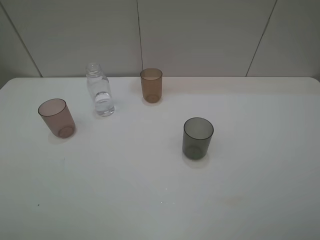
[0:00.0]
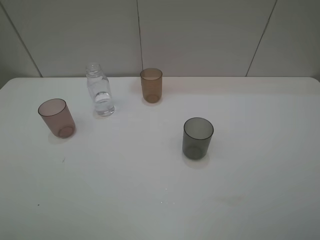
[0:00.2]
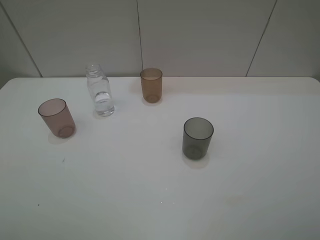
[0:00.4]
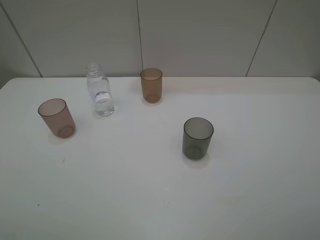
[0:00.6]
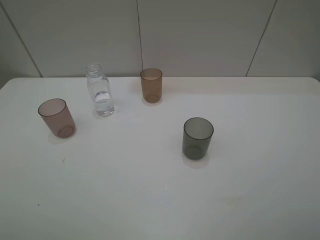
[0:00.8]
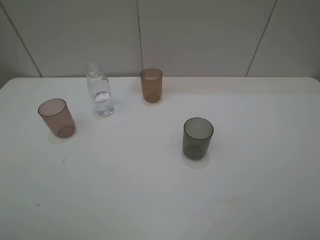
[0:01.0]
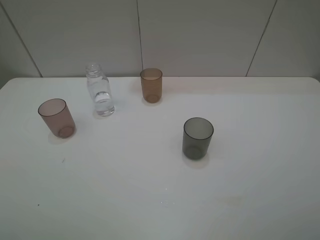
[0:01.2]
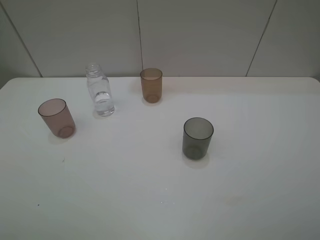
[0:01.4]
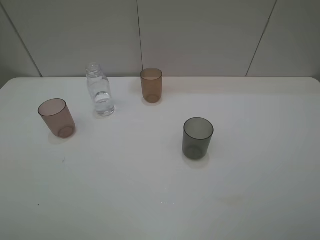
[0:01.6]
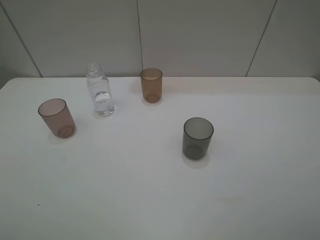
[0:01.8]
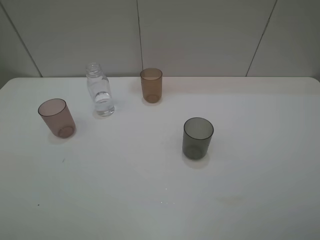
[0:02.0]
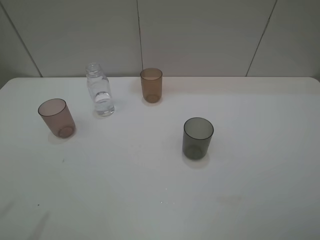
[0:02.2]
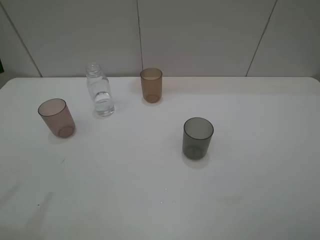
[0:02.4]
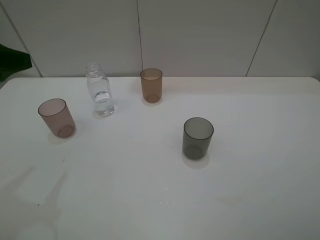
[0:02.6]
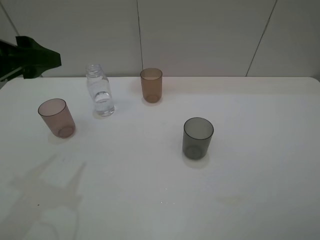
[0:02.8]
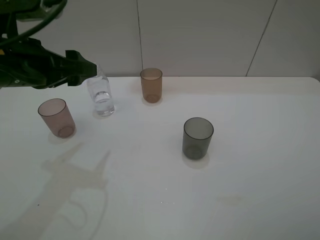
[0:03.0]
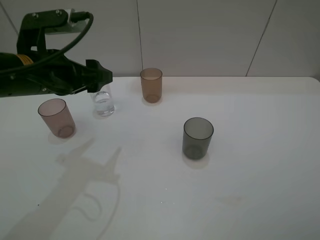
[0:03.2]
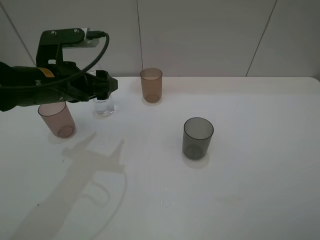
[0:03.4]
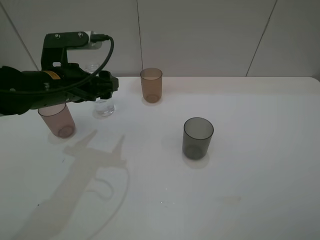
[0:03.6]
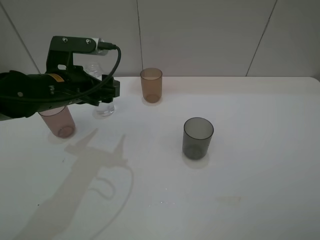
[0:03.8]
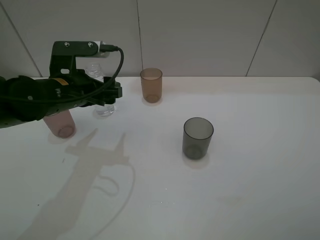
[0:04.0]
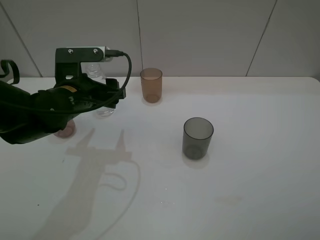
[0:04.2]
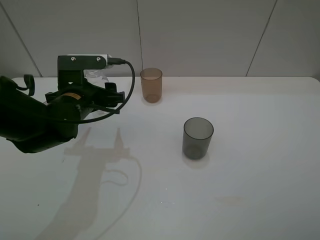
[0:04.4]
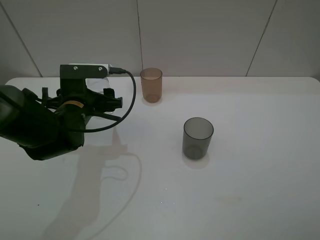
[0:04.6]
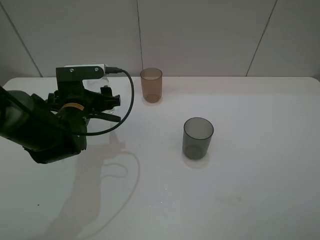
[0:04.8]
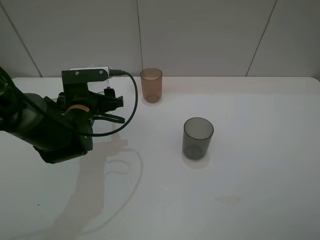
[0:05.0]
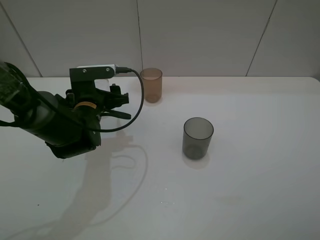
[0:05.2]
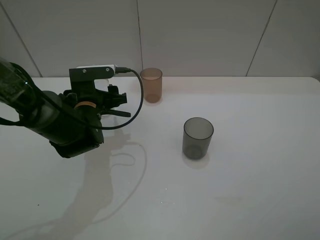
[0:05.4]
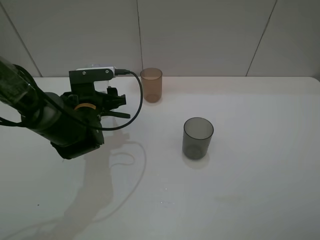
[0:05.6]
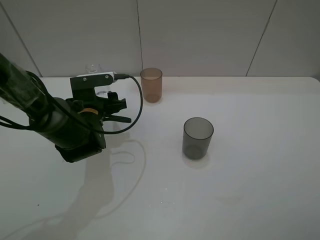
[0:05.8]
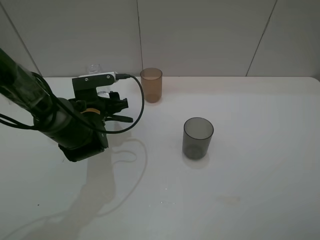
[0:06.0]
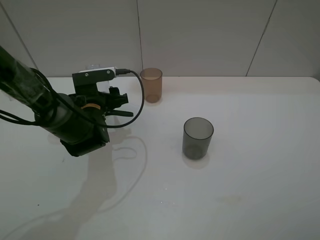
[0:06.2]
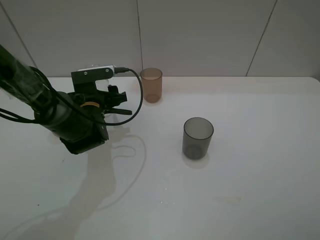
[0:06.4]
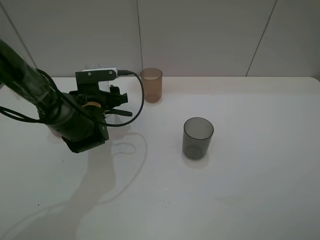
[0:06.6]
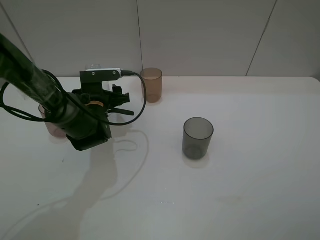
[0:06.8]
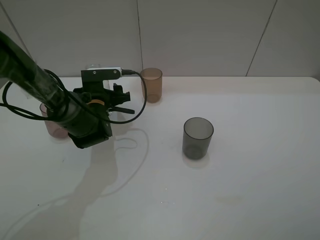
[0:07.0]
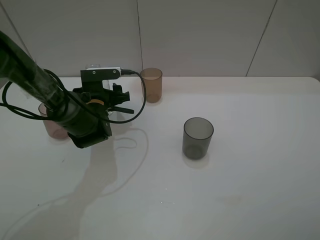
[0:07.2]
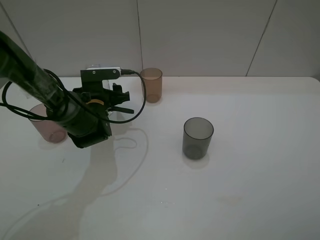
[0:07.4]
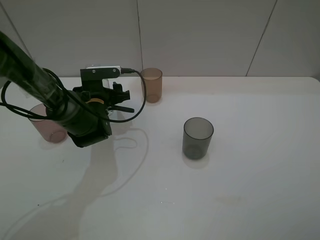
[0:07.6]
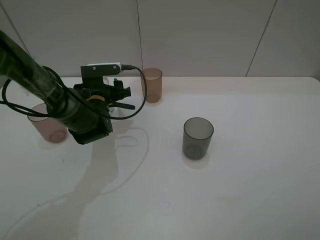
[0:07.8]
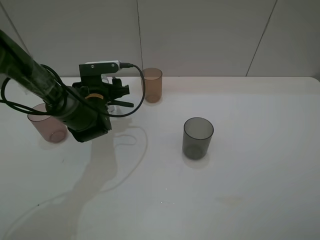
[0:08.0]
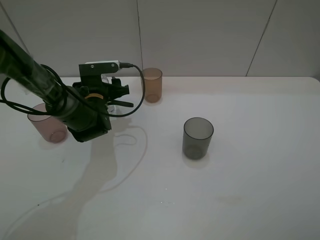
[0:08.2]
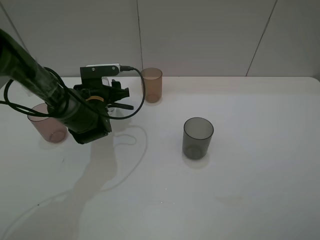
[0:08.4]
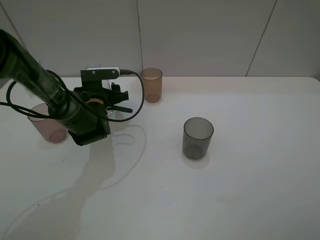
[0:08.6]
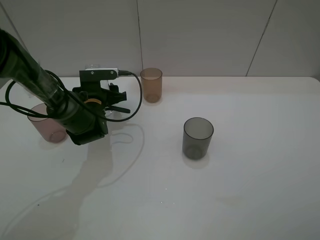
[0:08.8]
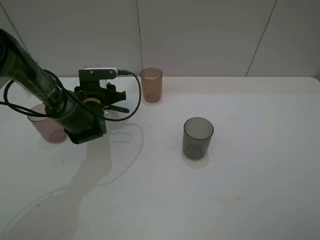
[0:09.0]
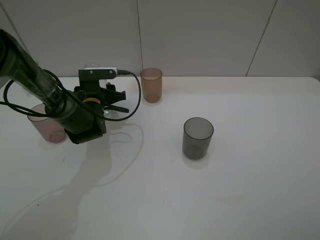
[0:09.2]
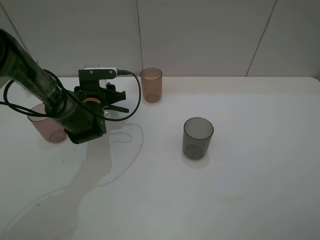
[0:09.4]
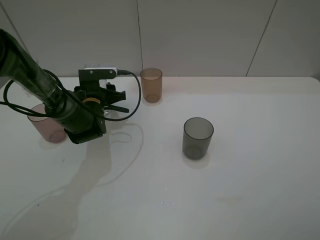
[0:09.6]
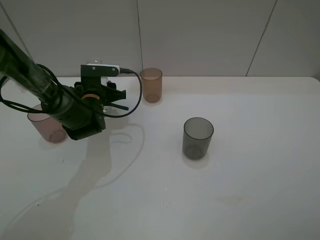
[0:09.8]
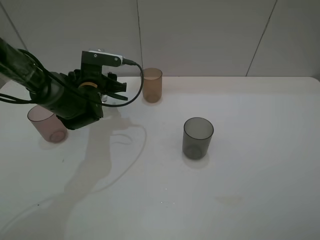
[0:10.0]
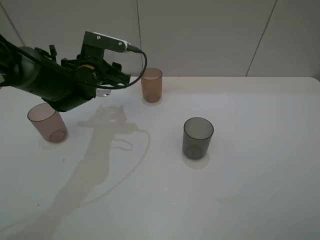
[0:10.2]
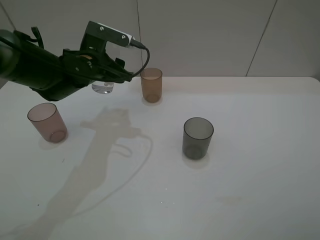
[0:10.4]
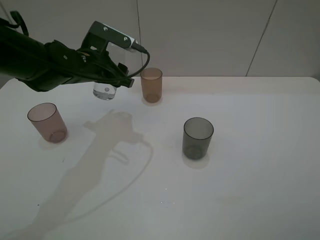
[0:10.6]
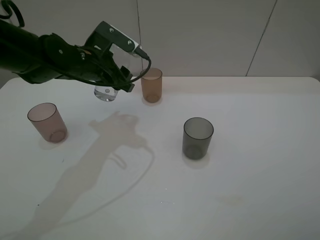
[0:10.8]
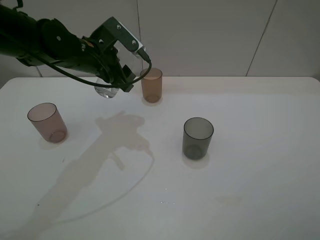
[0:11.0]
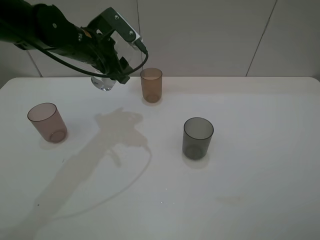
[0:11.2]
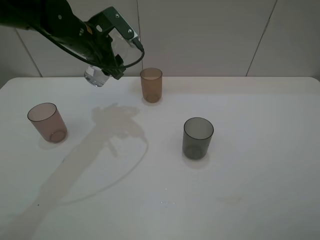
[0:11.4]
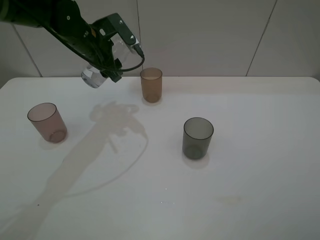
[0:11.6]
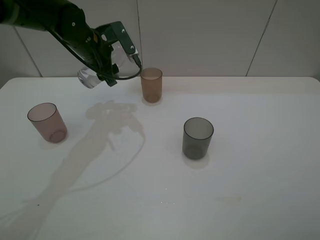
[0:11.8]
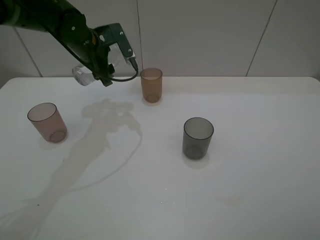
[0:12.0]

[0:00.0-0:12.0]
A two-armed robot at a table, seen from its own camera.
Task of the whole recording: pick up the bottle filled with water and pour water into the middle cup of the three cups.
Step, 0:00.0 to 0:08.6: Grasp the transparent bottle with the left gripper.
0:01.6 to 0:03.0: The left gripper moves forward and to the right, about 25 cm.
0:03.0 to 0:04.4: The left gripper travels downward by approximately 10 cm.
0:04.4 to 0:06.0: The left gripper goes some 5 cm downward.
0:06.0 to 0:07.6: The grippers move only a little.
0:07.6 to 0:09.0: The left gripper closes up.
0:09.0 to 0:10.4: The left gripper goes approximately 10 cm upward.
0:10.4 to 0:12.0: The left gripper goes some 5 cm forward.

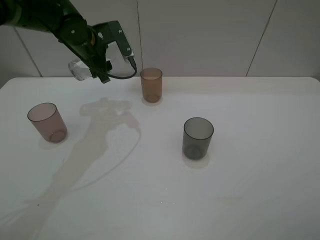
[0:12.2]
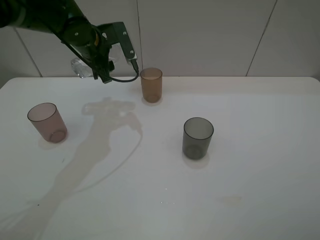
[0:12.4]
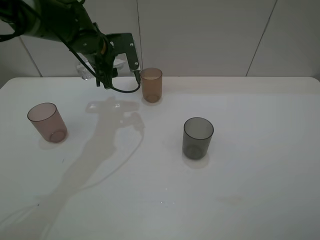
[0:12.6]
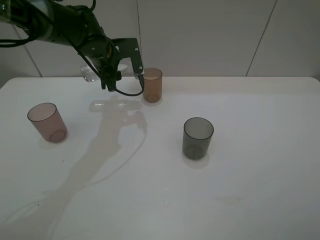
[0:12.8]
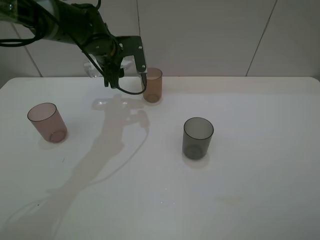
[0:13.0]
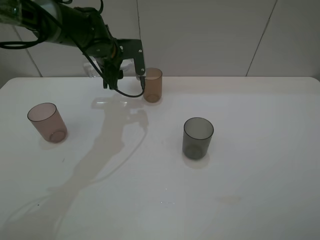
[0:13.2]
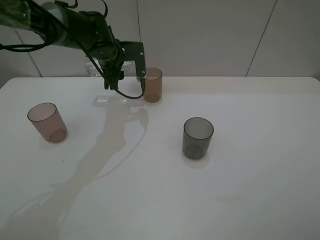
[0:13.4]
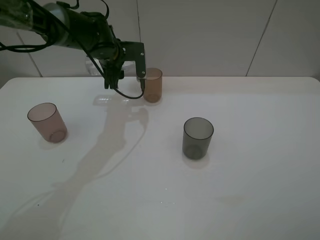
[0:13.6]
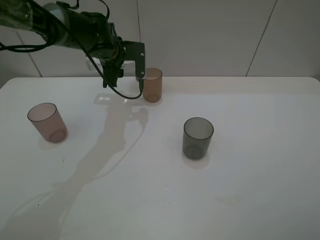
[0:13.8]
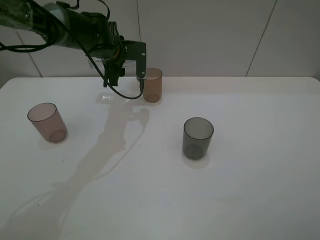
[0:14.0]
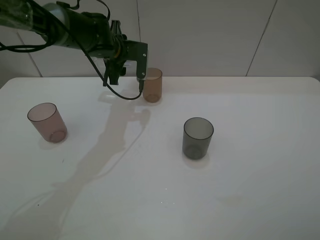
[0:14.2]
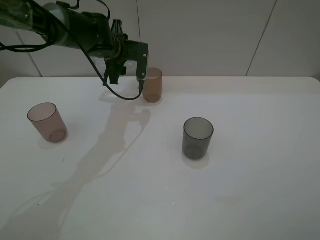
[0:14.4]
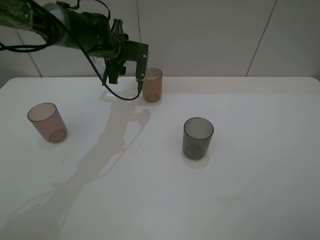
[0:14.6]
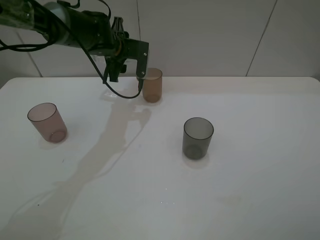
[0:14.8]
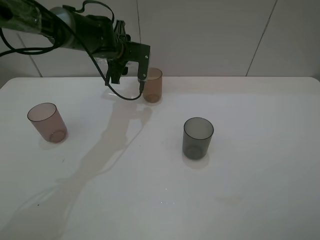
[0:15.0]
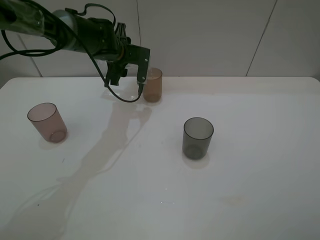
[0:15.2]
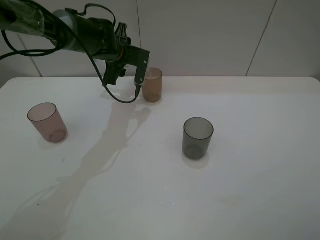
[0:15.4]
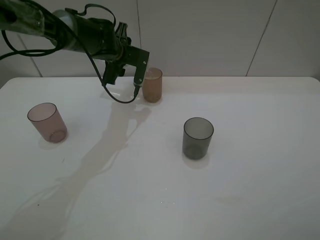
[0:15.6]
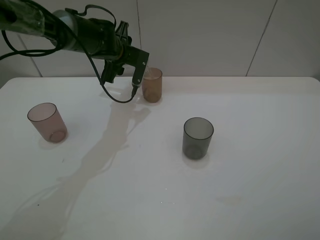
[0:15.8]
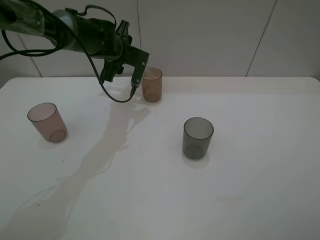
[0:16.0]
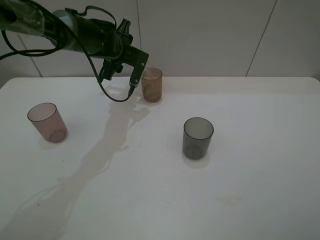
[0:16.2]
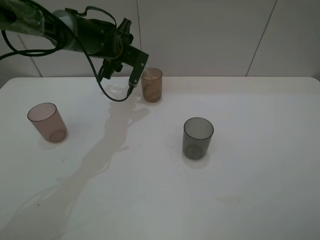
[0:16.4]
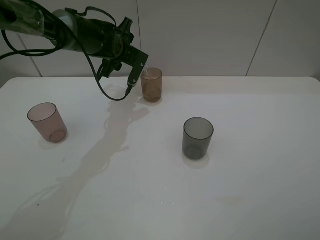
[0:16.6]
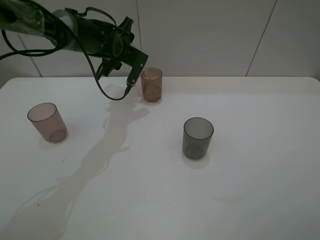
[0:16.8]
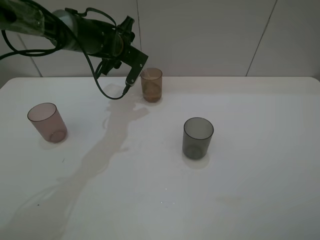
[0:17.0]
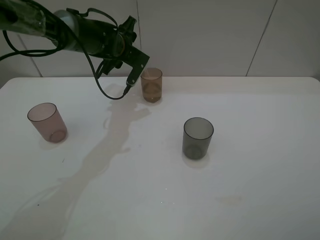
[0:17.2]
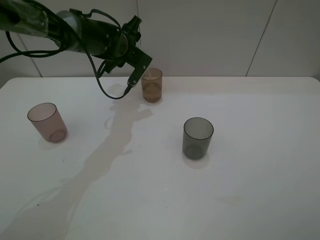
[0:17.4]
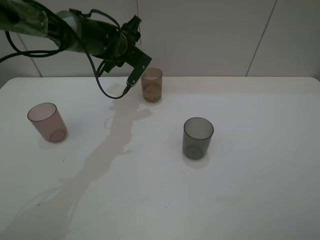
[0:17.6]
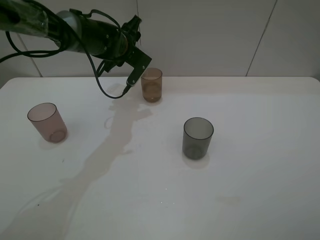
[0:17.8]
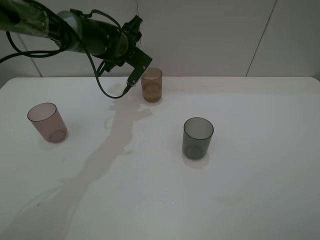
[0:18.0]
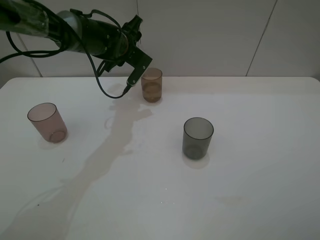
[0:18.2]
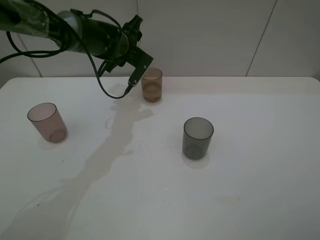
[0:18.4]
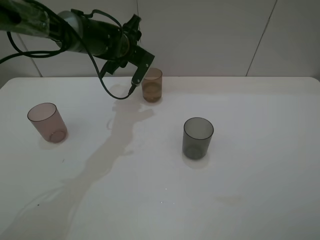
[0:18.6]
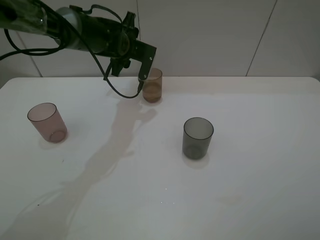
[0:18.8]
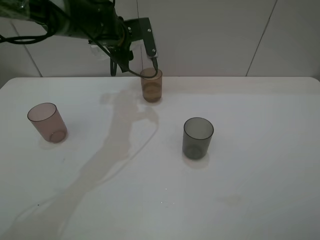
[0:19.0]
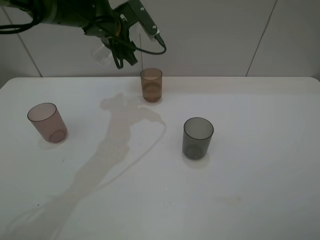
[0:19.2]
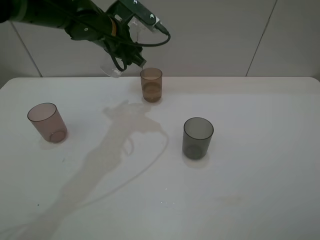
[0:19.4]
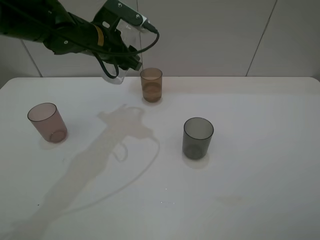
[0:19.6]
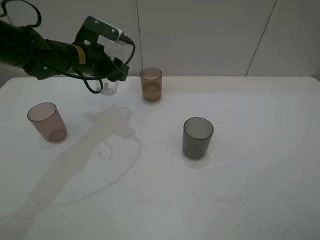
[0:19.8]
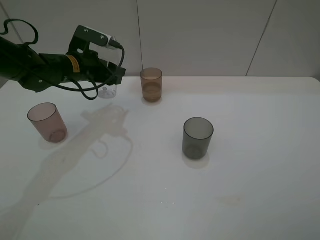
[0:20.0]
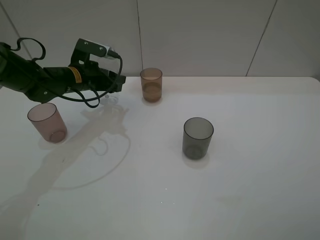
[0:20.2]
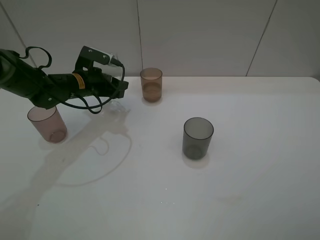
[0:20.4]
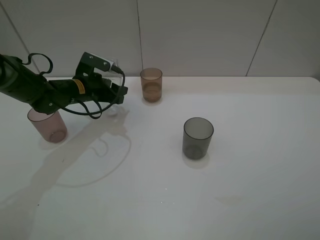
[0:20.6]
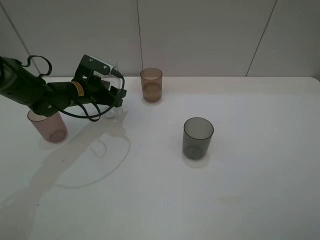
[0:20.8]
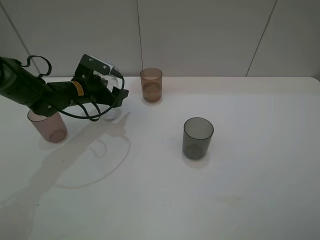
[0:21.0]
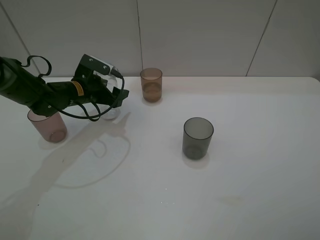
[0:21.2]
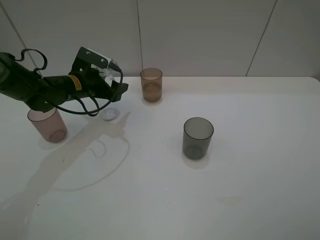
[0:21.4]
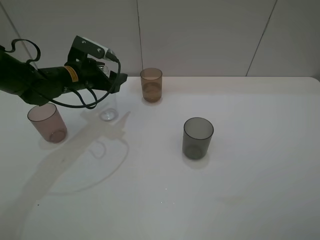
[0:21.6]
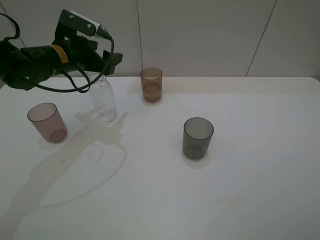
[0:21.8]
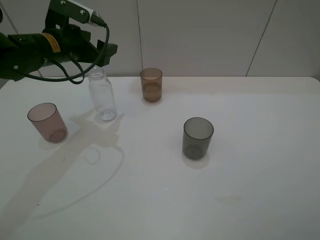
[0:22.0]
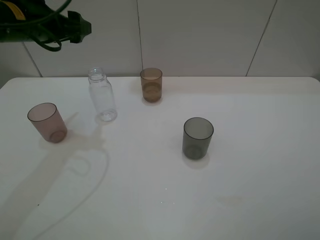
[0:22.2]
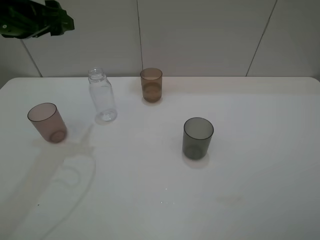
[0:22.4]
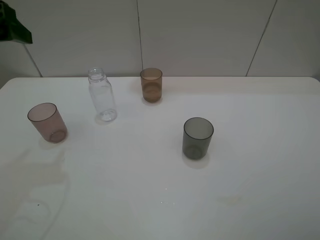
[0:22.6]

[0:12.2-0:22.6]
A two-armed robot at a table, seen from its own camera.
Task of the whole recording: pick up the bottle filled with water and pour water into the middle cup of the three cups.
Step, 0:12.2 to 0:15.8: Pour water from transparent bottle to brown cup with the left gripper.
Step, 0:16.0 to 0:22.0: Place the transparent bottle with the left gripper.
0:12.2 to 0:13.6: The left gripper shifts by some 5 cm.
0:13.6 to 0:15.2: The grippers make only small movements.
0:15.2 to 0:16.6: The grippers stay close to where they were, moving slightly.
0:16.6 to 0:18.2: The grippers make only small movements.
0:18.2 to 0:19.6: The left gripper moves backward, approximately 5 cm.
0:19.6 to 0:21.2: The left gripper moves downward and to the left, some 15 cm, and opens its fingers.
0:21.2 to 0:22.6: The left gripper travels upward and backward by some 30 cm.
